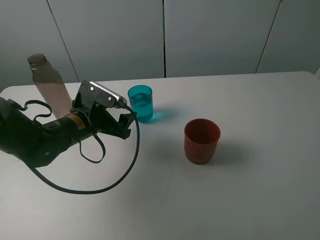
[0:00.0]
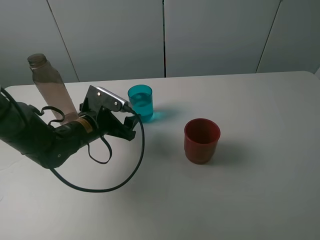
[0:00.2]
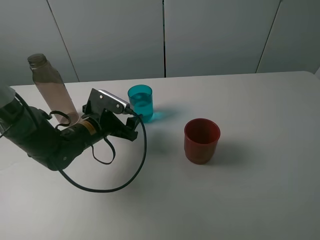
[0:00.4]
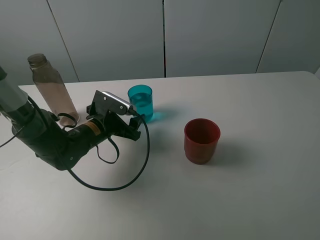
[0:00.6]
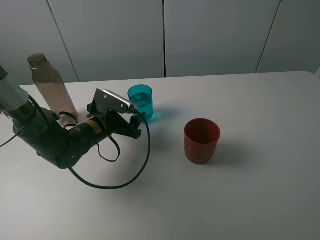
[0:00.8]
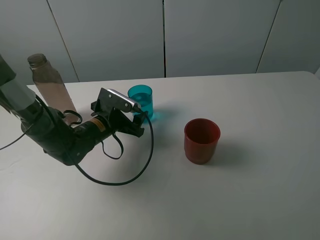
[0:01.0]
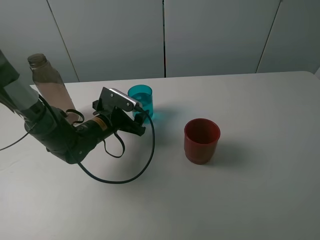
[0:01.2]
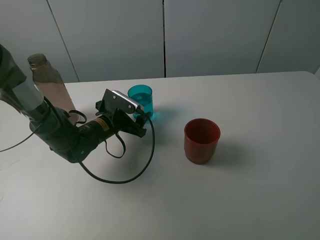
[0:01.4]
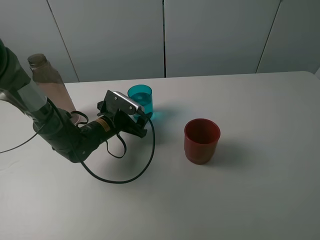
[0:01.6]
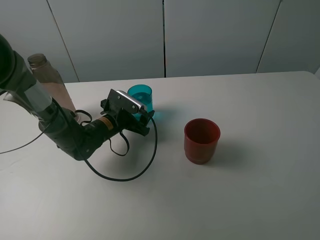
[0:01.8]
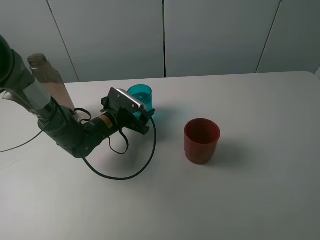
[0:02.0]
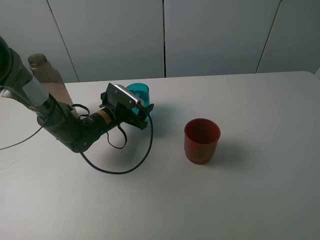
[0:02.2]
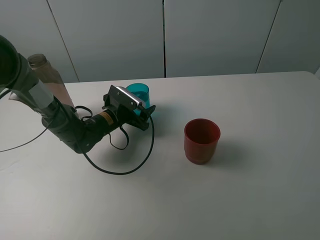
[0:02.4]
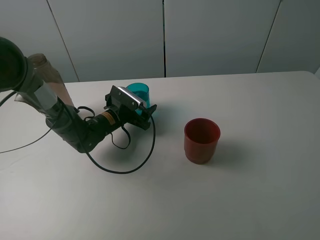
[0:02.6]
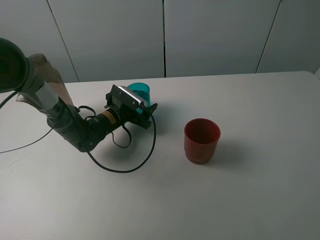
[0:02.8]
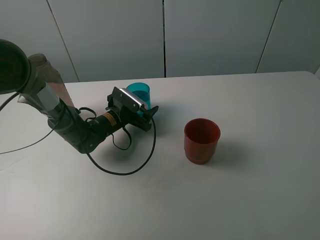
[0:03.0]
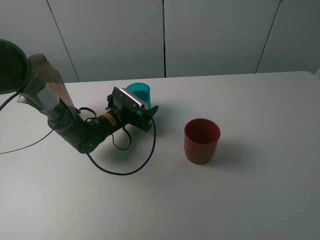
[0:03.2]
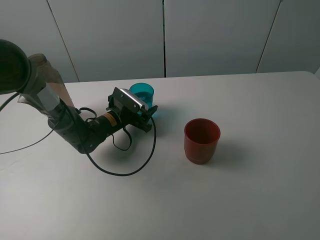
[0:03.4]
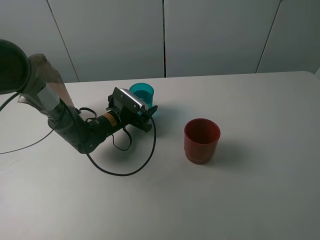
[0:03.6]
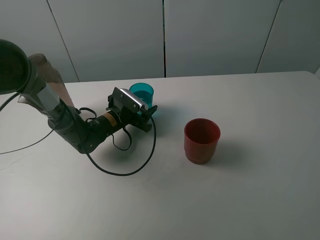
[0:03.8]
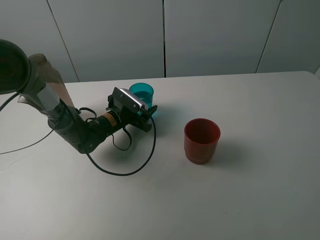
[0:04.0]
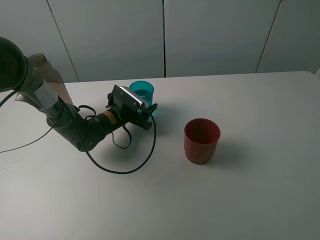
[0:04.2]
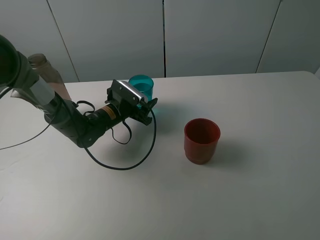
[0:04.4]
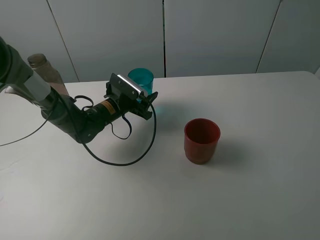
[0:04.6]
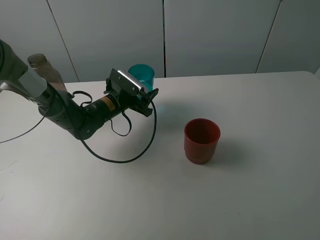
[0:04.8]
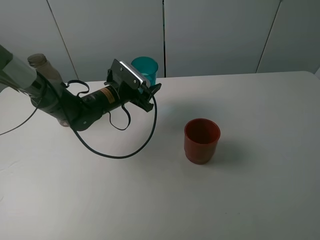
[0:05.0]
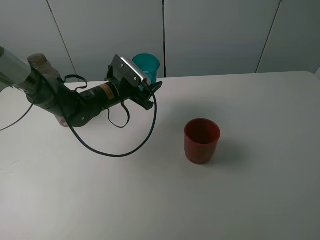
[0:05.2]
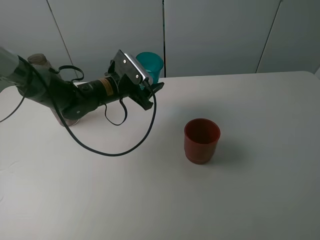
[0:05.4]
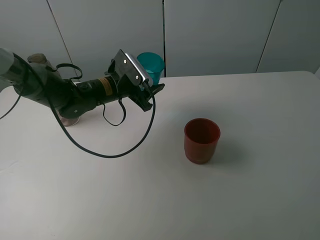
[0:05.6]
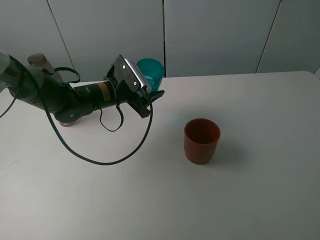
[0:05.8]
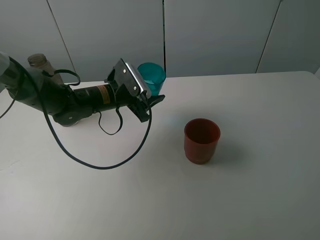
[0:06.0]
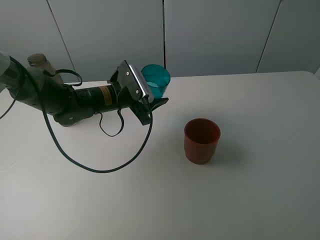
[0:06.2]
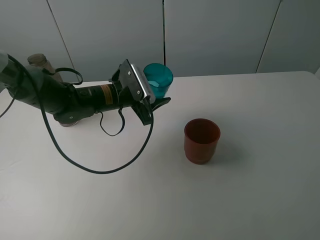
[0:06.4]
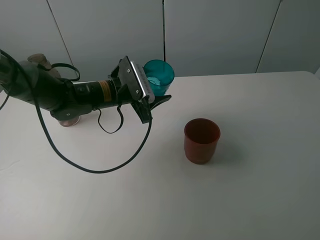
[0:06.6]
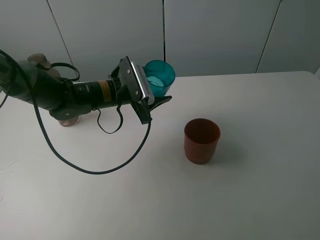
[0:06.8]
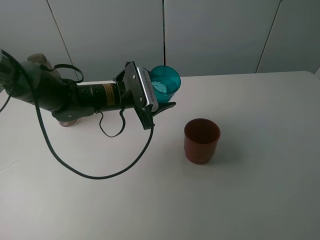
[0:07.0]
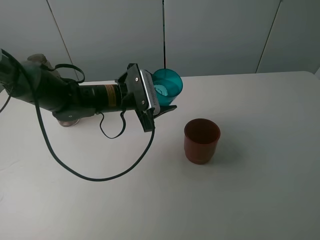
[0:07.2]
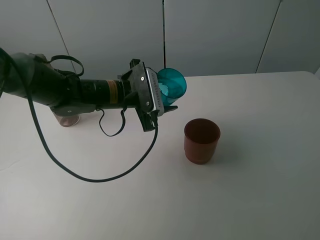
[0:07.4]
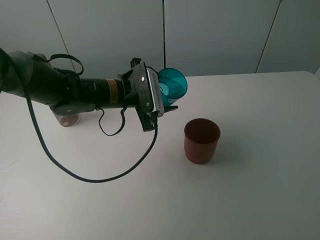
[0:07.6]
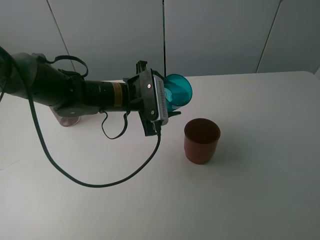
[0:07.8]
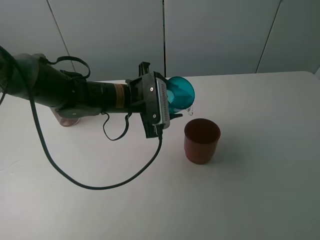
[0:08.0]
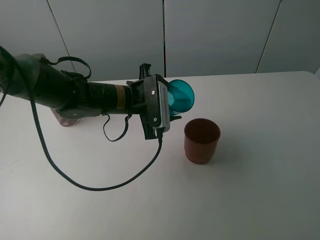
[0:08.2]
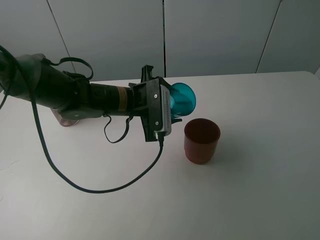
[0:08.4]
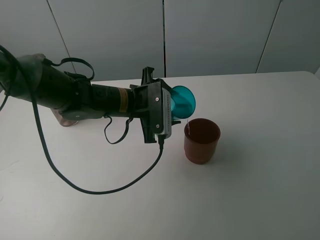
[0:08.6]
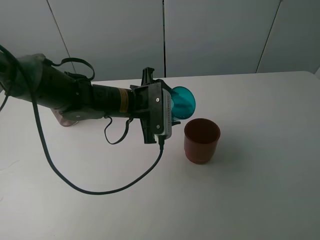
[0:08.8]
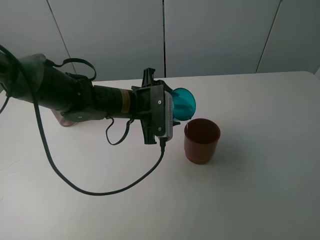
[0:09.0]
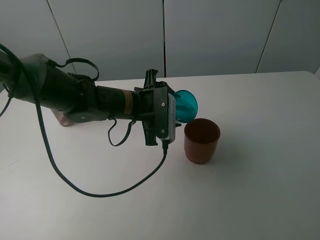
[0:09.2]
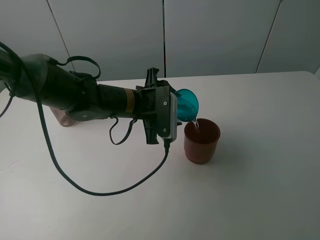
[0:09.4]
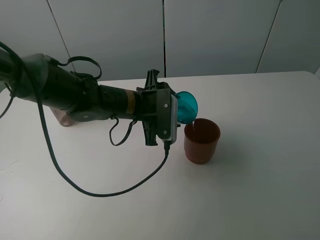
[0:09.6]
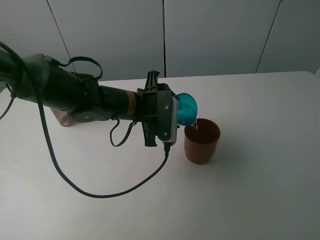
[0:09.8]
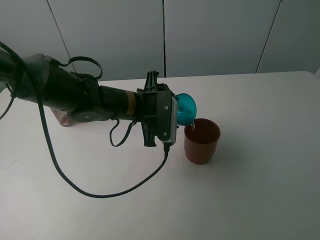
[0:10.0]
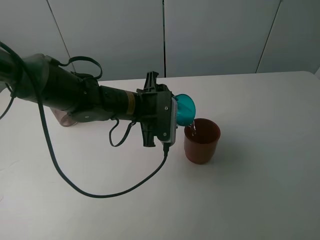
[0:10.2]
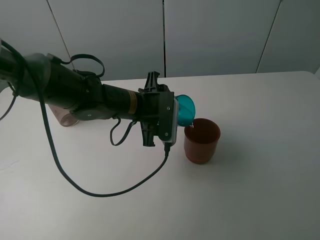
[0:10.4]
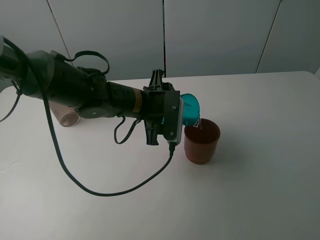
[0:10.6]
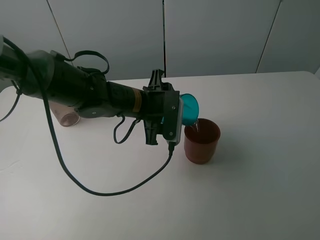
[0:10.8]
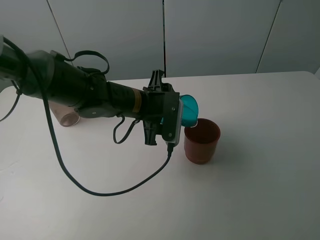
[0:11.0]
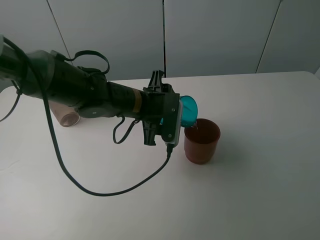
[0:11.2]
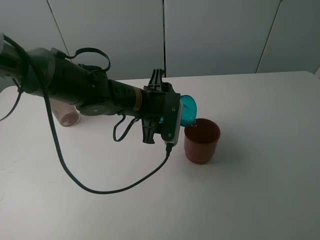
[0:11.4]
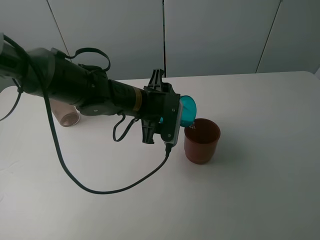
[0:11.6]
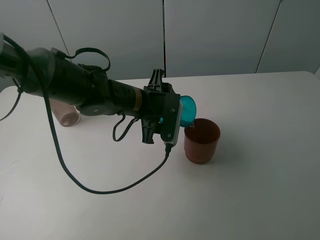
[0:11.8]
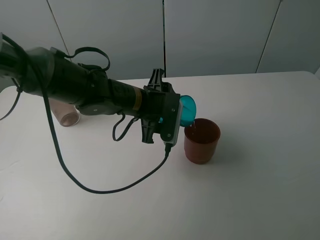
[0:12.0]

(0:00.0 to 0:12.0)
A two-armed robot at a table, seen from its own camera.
Task of the whole recording: pick up the bottle and pour water into the cup, then pick up the cup containing water and pour it into another cup.
Step, 0:00.0 - 0:03.2: Grasp the blue cup with the left gripper.
0:00.0 - 0:01.6: The left gripper is displaced downward and forward by approximately 10 cm.
0:01.6 - 0:03.0: The grippers stay close to where they were, moving slightly.
0:03.0 - 0:04.4: The left gripper closes up.
0:04.4 - 0:06.0: The left gripper goes roughly 5 cm upward.
0:06.0 - 0:07.6: The left gripper ends up roughly 5 cm from where it was.
0:07.6 - 0:09.0: The grippers stay close to where they were, moving slightly.
0:09.0 - 0:12.0: The grippers stay close to where they were, moving slightly.

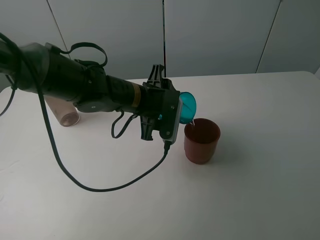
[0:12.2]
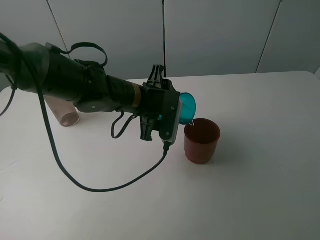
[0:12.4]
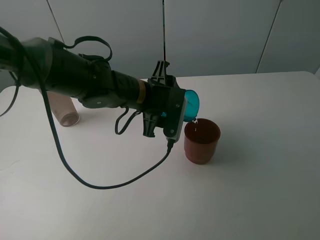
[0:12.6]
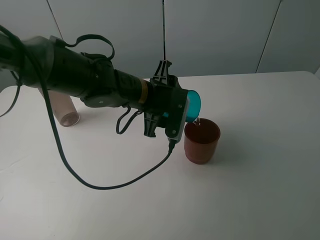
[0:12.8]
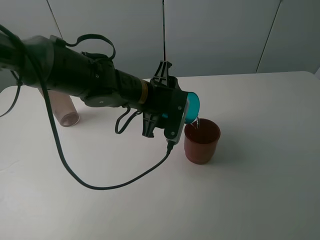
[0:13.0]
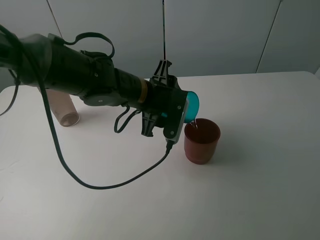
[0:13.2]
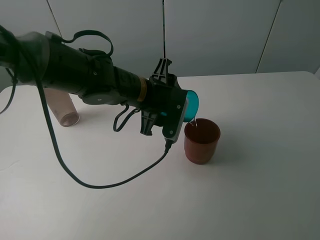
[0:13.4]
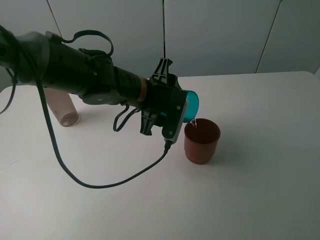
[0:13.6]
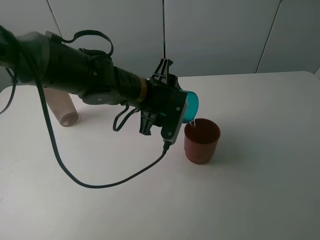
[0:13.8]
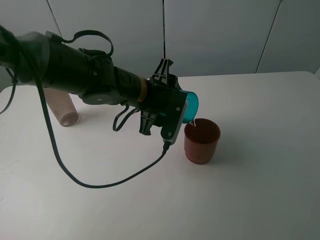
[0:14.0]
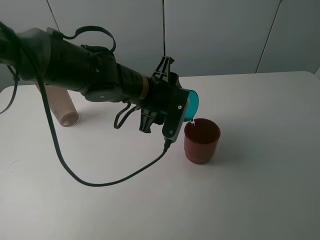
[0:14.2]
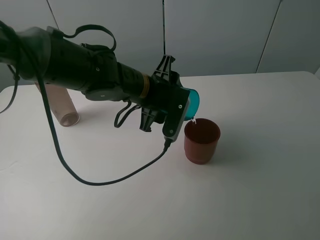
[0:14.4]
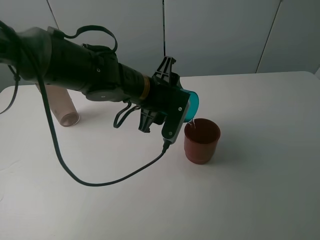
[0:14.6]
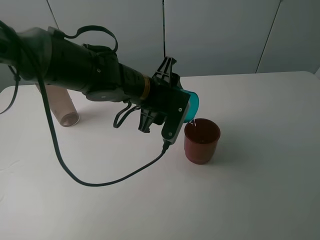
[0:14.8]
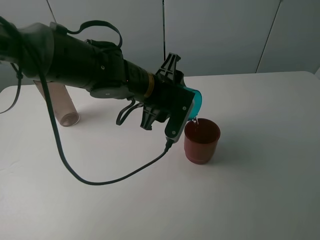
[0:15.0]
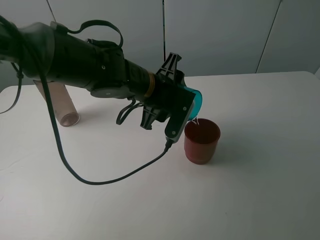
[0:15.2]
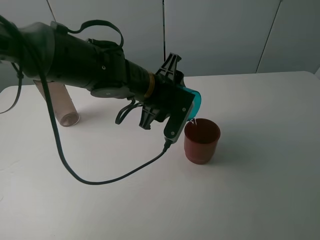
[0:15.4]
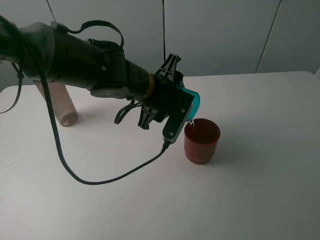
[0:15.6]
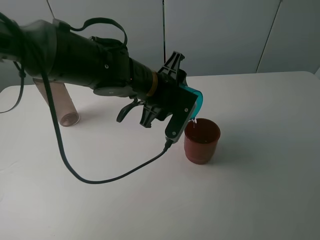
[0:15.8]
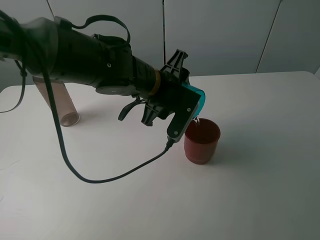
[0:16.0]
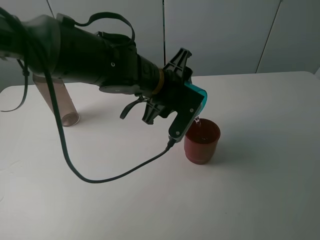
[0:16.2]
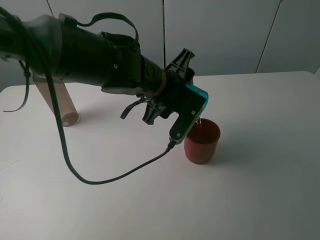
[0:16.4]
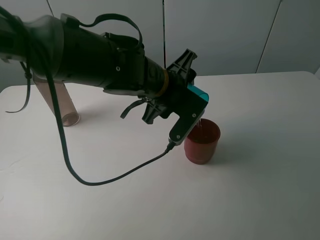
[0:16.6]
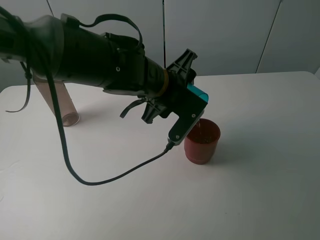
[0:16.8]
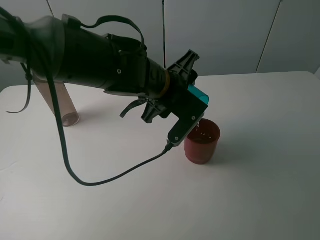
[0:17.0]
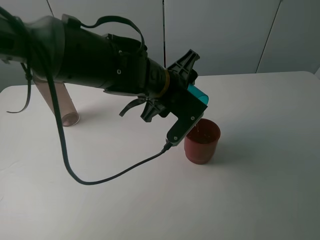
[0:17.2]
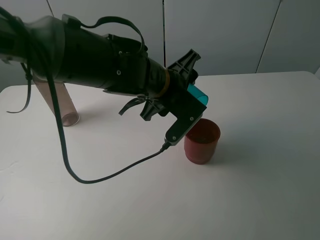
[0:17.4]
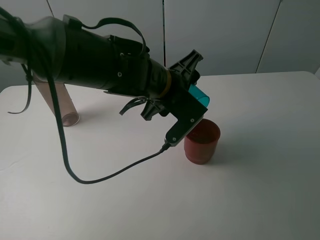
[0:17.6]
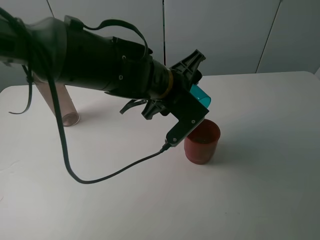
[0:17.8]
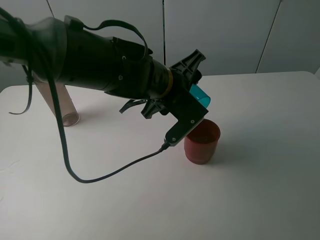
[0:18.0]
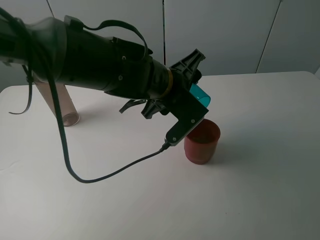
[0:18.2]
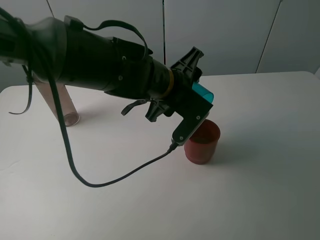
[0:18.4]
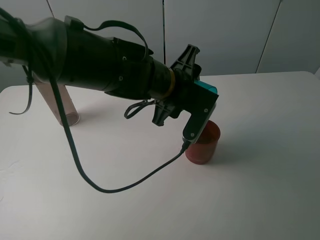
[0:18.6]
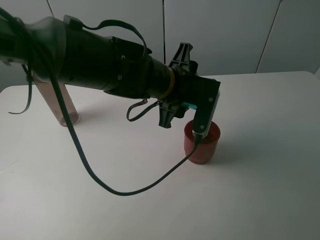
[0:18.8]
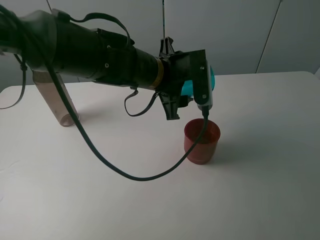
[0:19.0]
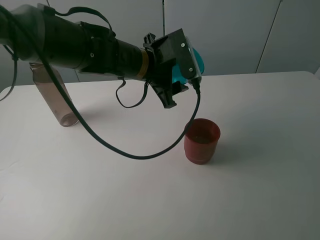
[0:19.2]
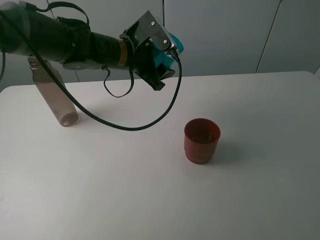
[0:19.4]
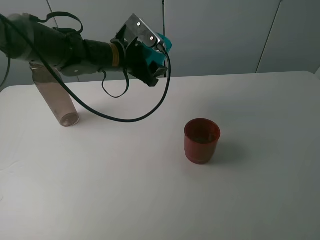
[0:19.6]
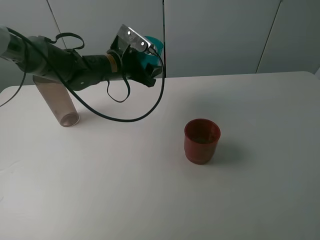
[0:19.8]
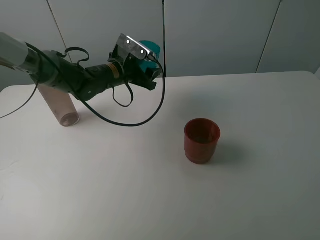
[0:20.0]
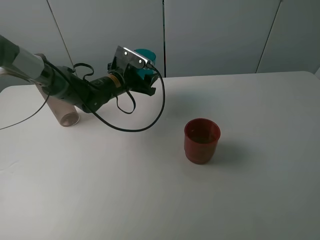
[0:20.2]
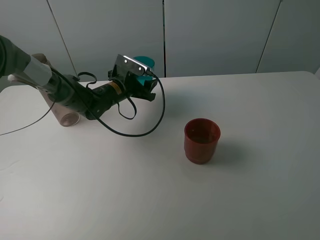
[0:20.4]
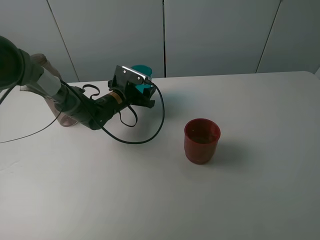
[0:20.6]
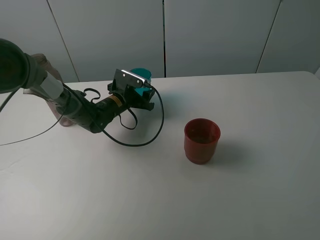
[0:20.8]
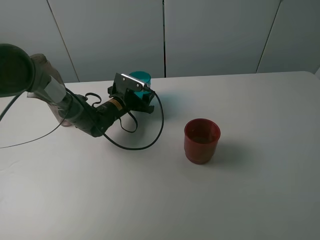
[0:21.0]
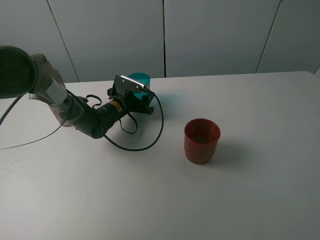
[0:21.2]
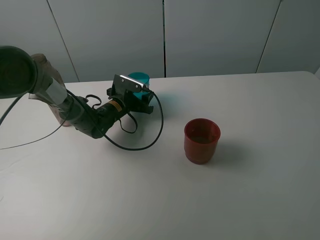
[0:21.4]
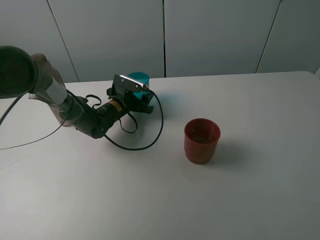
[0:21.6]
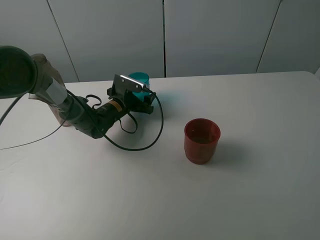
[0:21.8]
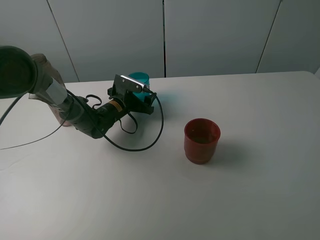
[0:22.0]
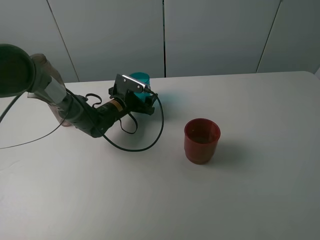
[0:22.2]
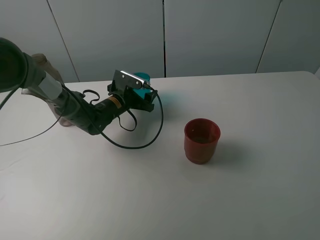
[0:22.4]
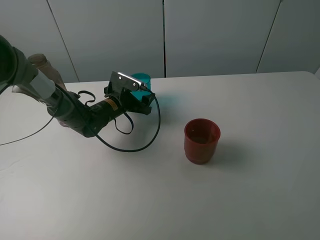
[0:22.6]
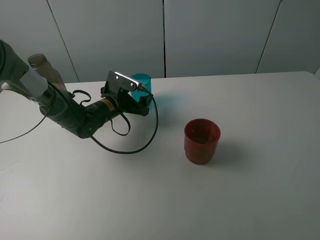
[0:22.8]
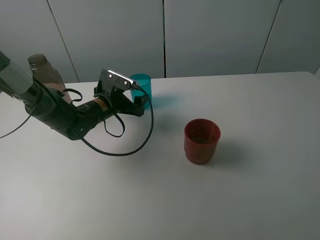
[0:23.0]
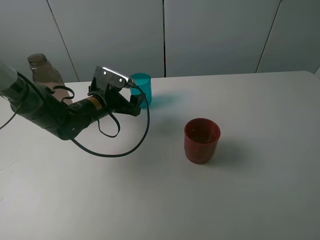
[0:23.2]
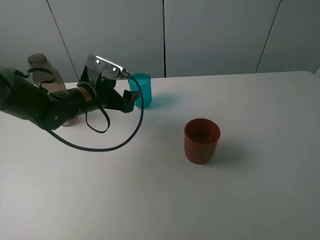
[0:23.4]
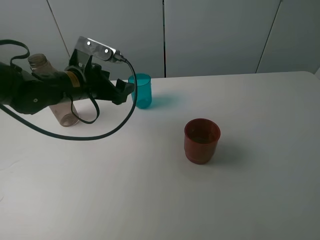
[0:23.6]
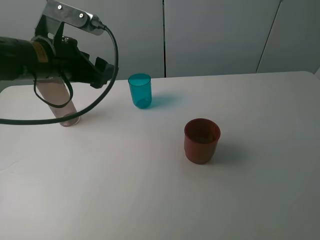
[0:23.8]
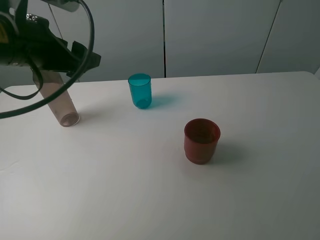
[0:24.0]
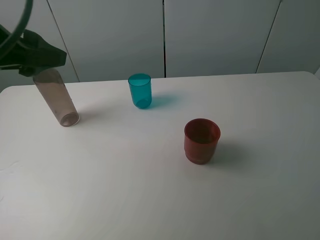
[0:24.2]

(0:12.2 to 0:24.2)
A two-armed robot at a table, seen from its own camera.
Task of the whole recording: pick up the bottle and pour water into the cup, then pick up the cup containing water and pour it into another cup.
Step, 0:12.2 - 0:18.8: Pour water from blue cup to red cup with the left gripper.
Step, 0:19.0 - 0:22.4: Place the blue cup with the left gripper.
0:12.2 - 0:15.2: The grippers stay close to where they were, moving slightly.
0:15.2 - 0:16.6: The grippers stay close to where they were, moving slightly.
0:16.6 - 0:18.2: There are only small adjustments of the grippers.
0:18.2 - 0:19.8: The left gripper is displaced forward and to the left by about 15 cm.
0:19.8 - 0:21.2: The left gripper goes roughly 15 cm downward.
0:21.2 - 0:22.6: The left gripper opens.
0:22.6 - 0:24.2: The left gripper goes some 35 cm upward and backward.
